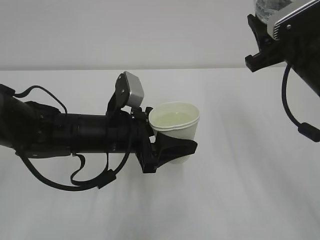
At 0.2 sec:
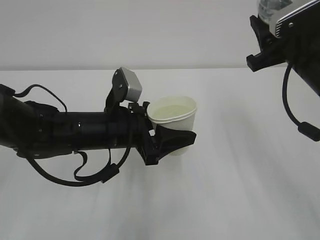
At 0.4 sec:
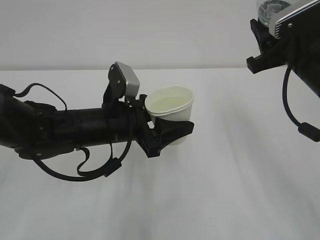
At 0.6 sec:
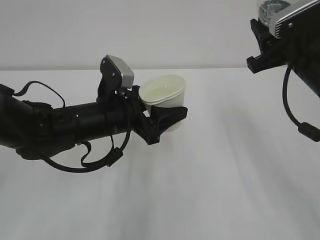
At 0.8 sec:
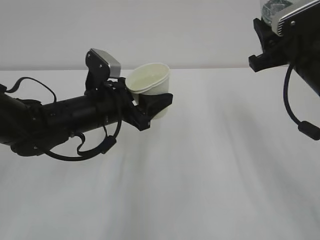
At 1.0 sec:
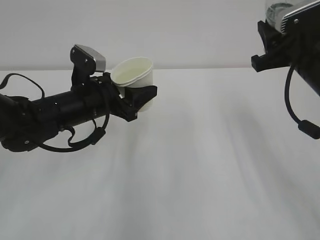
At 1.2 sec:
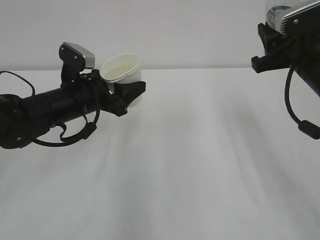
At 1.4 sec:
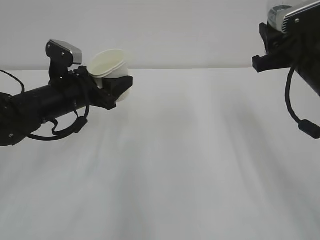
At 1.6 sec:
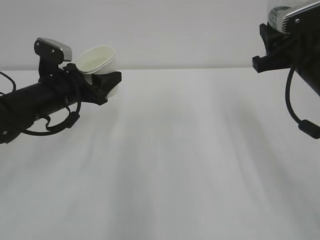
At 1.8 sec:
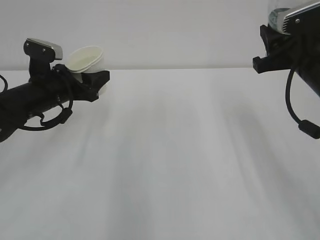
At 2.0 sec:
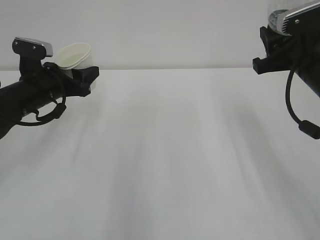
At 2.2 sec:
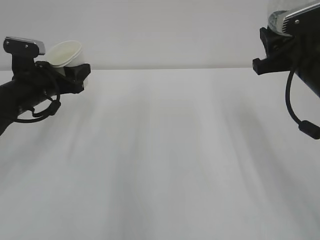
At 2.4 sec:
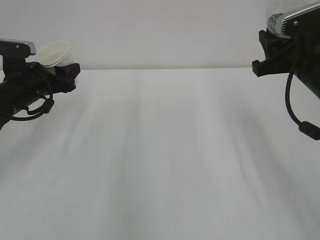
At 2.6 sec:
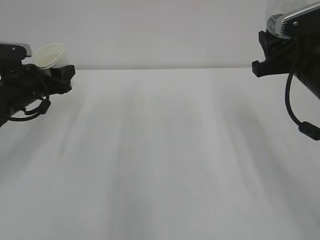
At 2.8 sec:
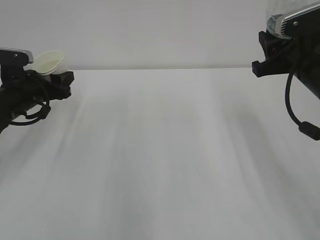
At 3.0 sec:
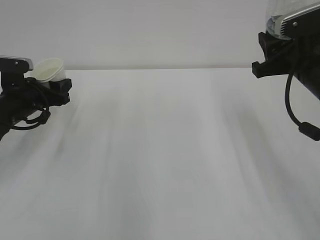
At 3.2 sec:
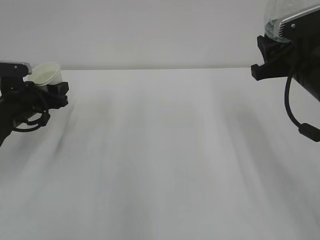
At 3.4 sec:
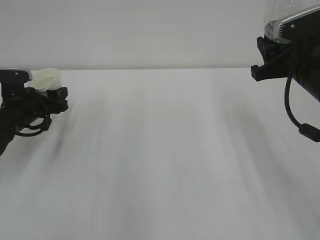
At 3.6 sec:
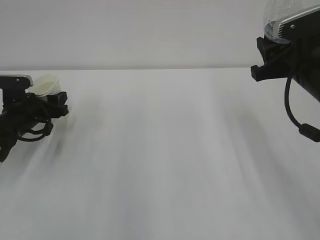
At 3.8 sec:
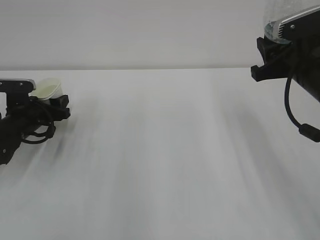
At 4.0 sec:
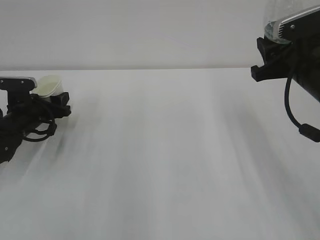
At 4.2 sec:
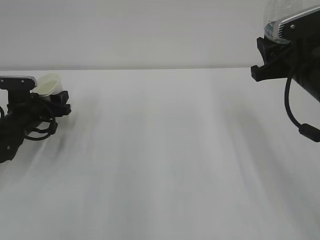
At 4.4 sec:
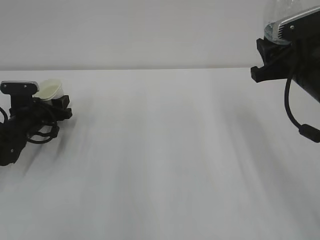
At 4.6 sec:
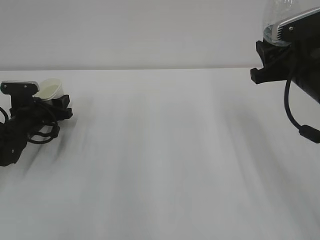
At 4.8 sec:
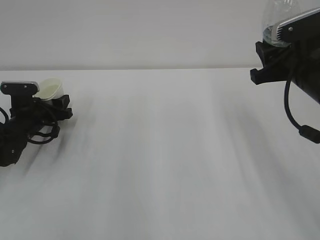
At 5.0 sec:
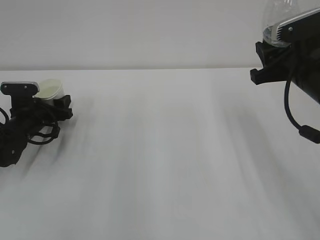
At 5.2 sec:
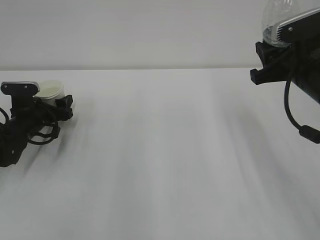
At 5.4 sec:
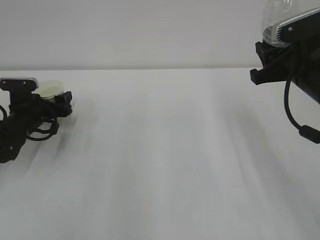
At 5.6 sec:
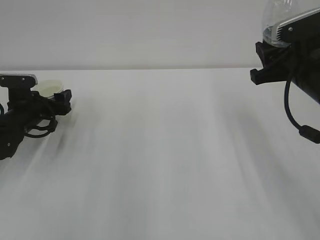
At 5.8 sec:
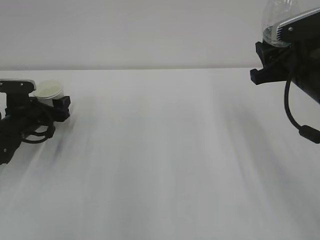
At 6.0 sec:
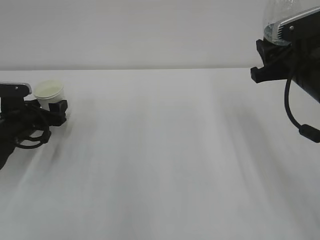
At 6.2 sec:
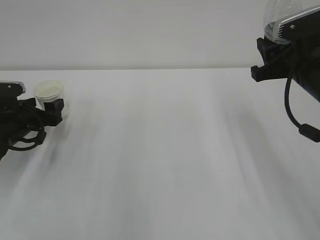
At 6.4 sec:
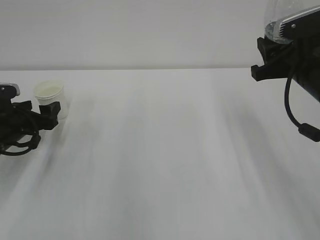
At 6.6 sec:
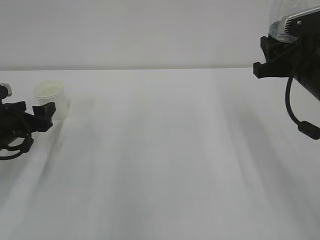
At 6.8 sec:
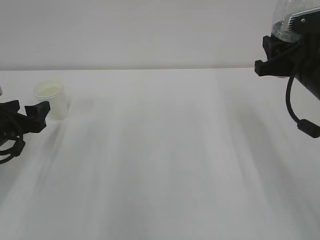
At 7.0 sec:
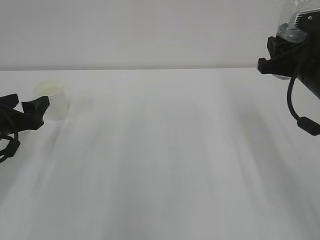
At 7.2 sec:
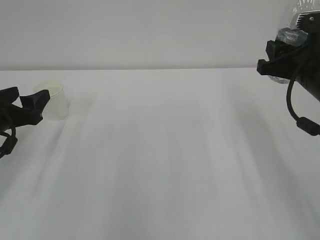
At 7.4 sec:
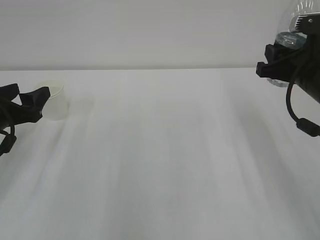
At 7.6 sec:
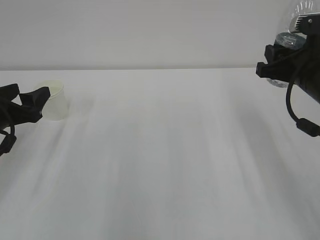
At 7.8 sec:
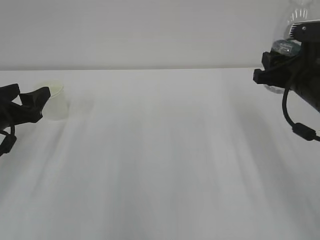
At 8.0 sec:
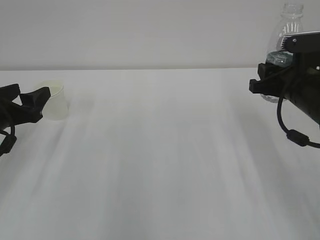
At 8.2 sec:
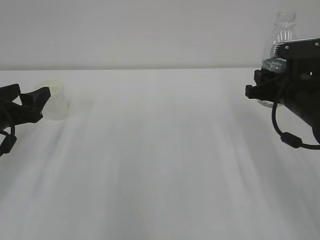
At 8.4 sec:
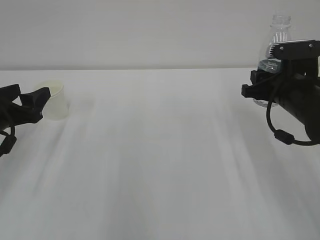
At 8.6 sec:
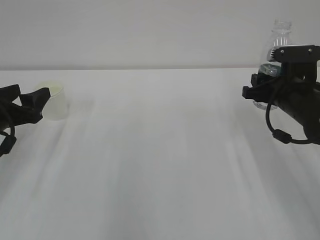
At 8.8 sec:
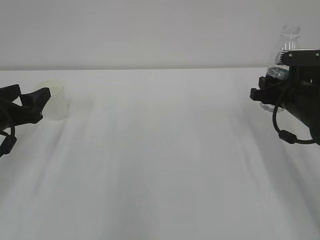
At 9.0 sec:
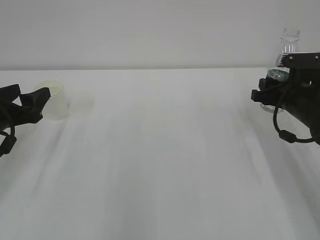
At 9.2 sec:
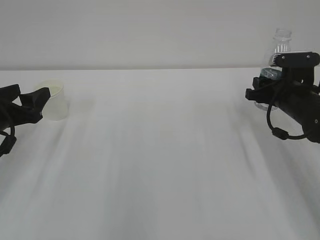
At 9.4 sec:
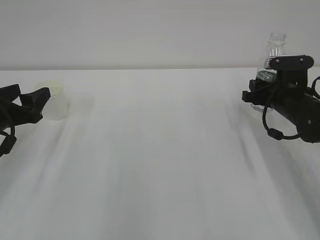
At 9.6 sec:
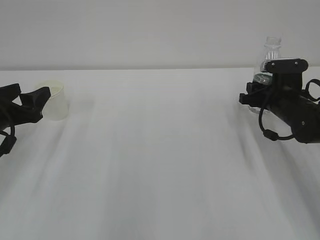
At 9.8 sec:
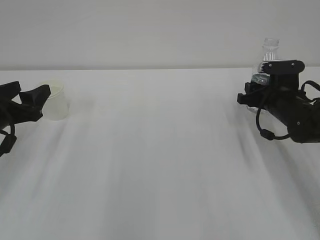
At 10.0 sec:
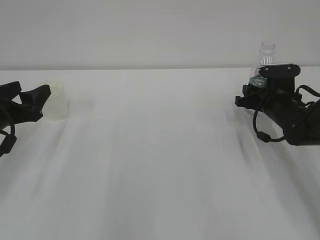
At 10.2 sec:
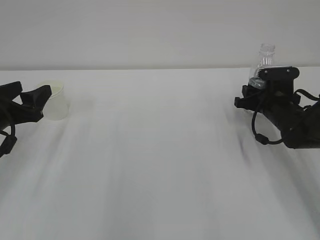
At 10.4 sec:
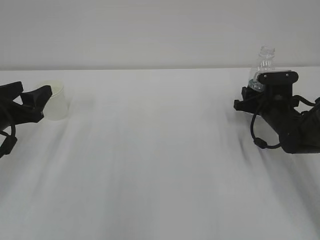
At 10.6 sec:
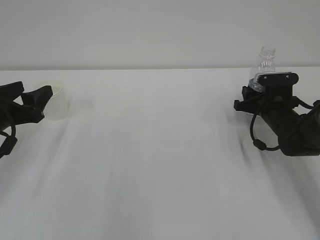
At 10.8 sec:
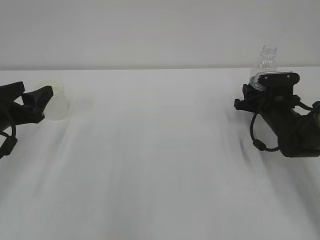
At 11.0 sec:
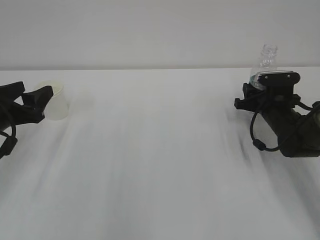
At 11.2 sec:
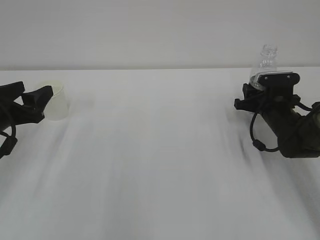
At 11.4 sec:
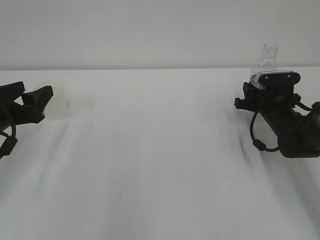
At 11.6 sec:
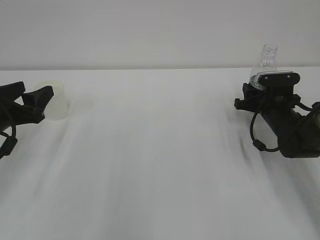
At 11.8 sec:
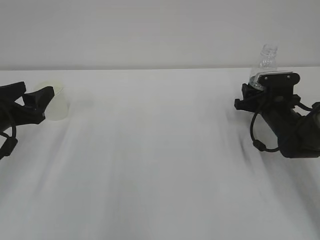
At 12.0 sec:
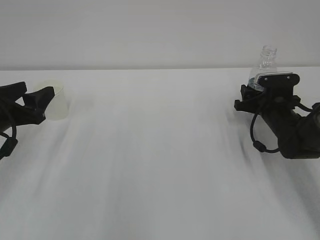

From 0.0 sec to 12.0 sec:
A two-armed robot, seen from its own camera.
From 0.0 sec to 1.6 sec: The left gripper is displaced to the left and forward by approximately 15 cm.
From 1.6 sec to 3.0 sec: The left gripper is displaced to the left by approximately 10 cm.
From 3.0 sec to 4.4 sec: The left gripper travels downward by some 5 cm.
From 4.4 sec to 6.0 sec: The left gripper opens its fingers.
From 6.0 sec to 7.6 sec: The left gripper shifts approximately 10 cm backward and upward.
From 7.6 sec to 9.0 sec: The right gripper is displaced downward and forward by about 10 cm.
From 9.0 sec to 10.4 sec: The right gripper shifts roughly 10 cm downward and forward.
From 10.4 sec to 12.0 sec: The right gripper opens up.

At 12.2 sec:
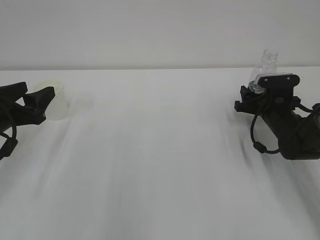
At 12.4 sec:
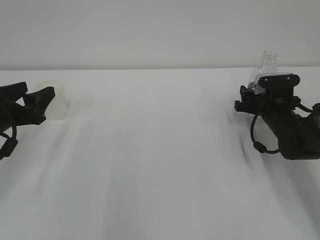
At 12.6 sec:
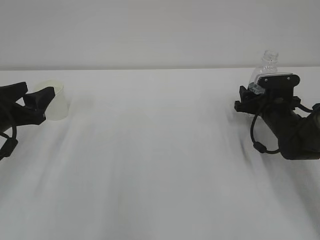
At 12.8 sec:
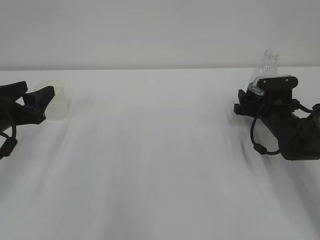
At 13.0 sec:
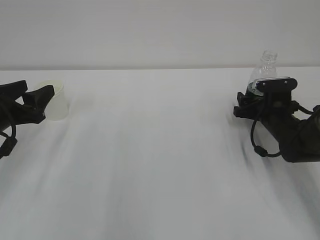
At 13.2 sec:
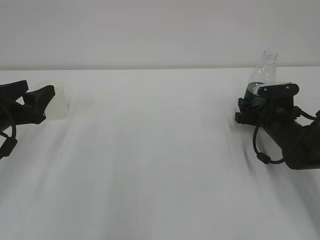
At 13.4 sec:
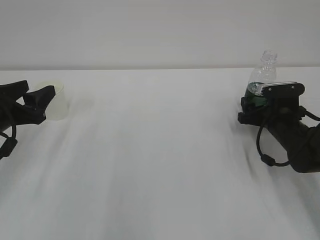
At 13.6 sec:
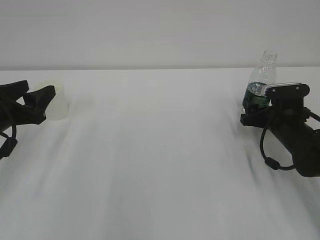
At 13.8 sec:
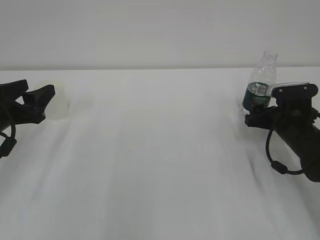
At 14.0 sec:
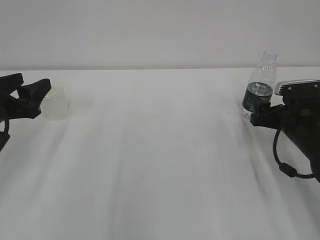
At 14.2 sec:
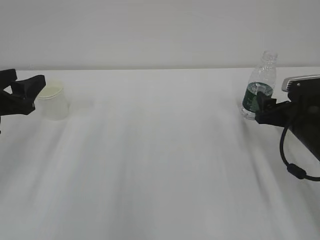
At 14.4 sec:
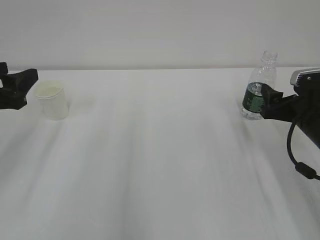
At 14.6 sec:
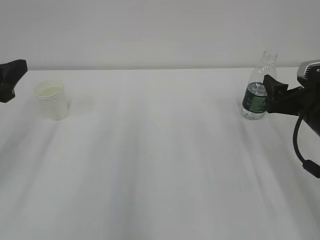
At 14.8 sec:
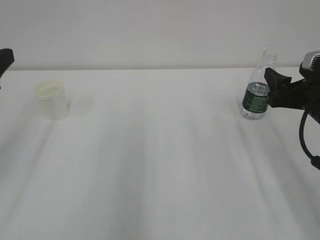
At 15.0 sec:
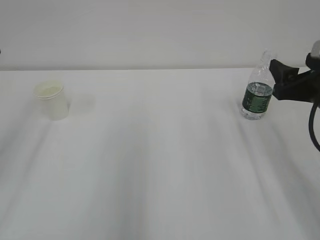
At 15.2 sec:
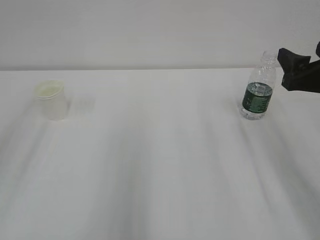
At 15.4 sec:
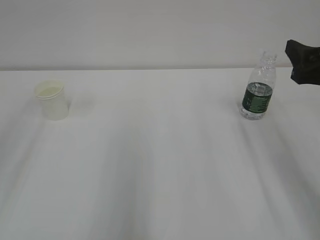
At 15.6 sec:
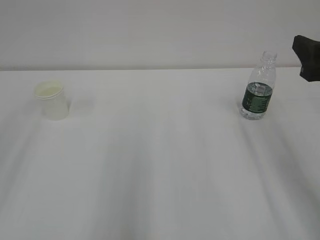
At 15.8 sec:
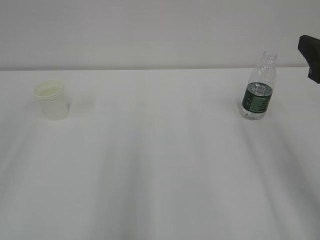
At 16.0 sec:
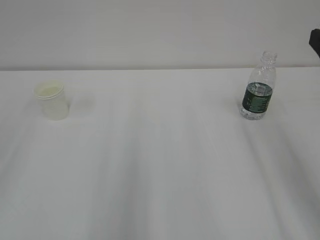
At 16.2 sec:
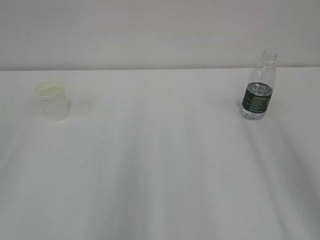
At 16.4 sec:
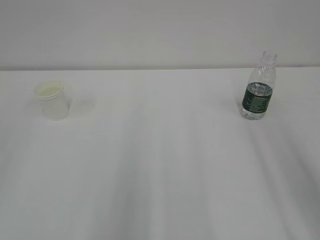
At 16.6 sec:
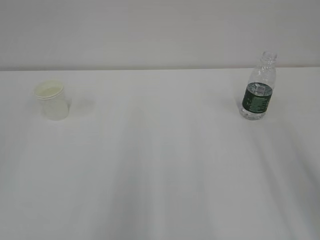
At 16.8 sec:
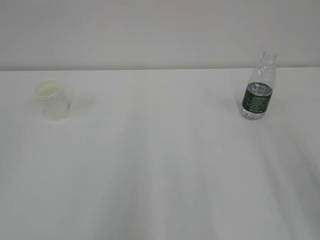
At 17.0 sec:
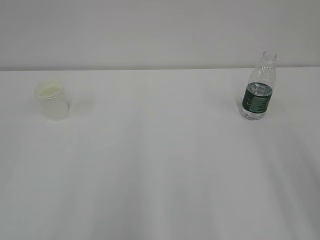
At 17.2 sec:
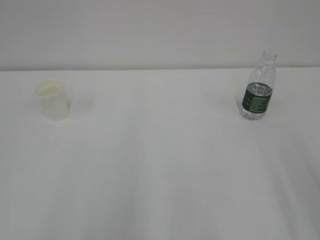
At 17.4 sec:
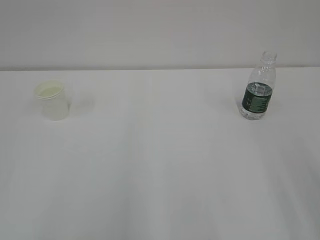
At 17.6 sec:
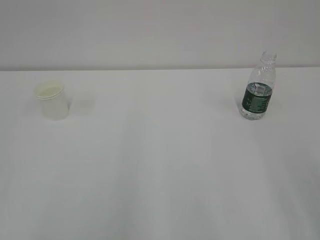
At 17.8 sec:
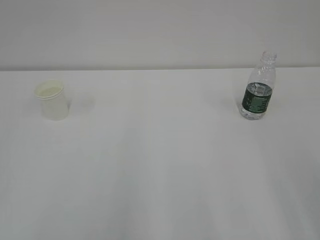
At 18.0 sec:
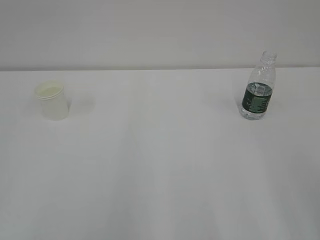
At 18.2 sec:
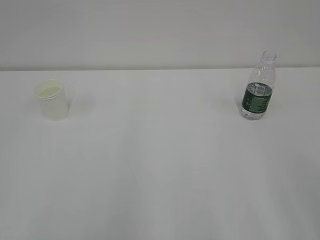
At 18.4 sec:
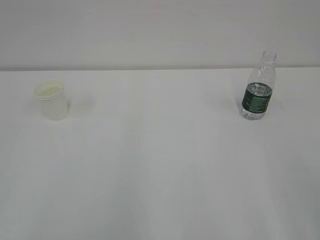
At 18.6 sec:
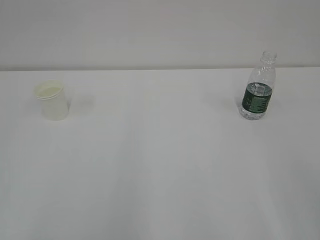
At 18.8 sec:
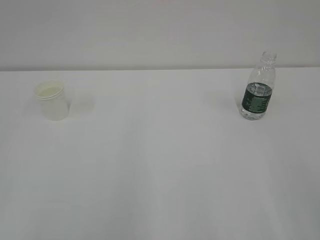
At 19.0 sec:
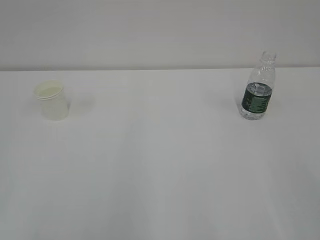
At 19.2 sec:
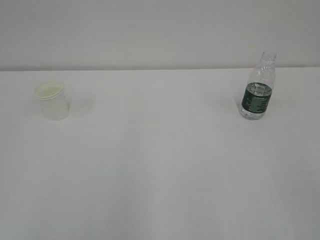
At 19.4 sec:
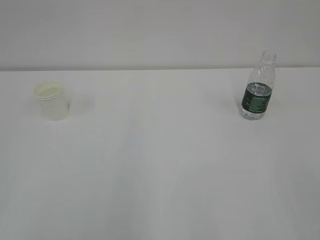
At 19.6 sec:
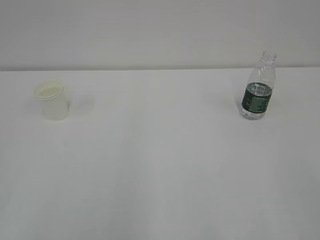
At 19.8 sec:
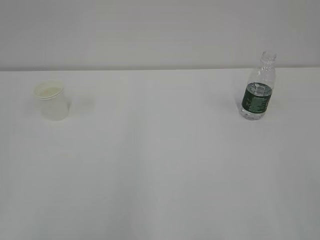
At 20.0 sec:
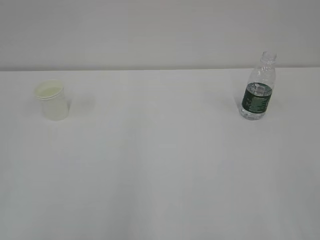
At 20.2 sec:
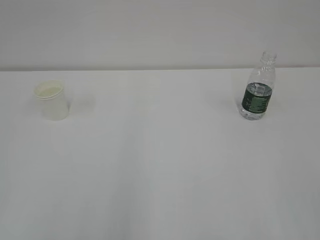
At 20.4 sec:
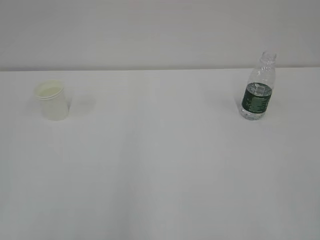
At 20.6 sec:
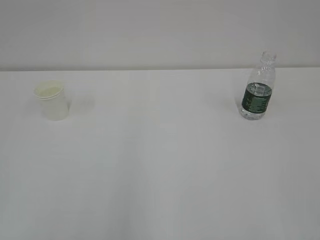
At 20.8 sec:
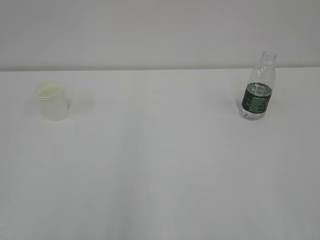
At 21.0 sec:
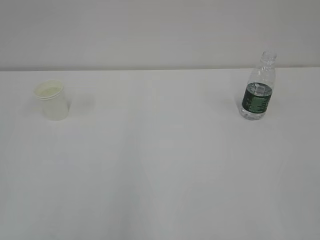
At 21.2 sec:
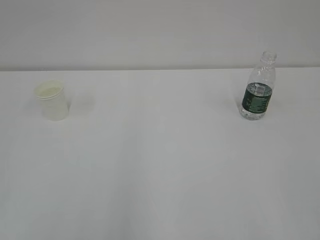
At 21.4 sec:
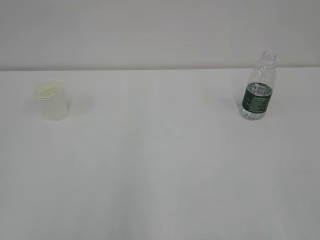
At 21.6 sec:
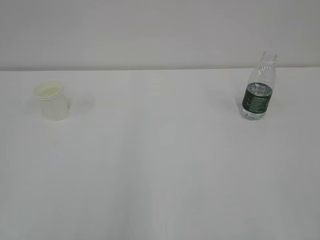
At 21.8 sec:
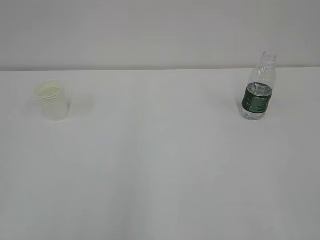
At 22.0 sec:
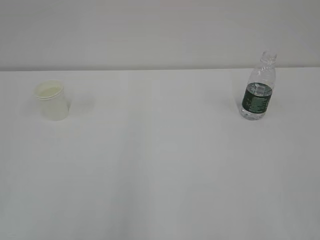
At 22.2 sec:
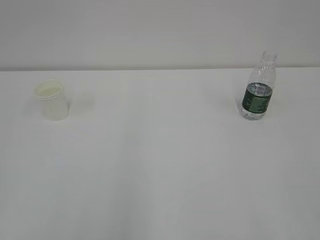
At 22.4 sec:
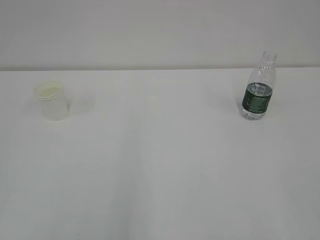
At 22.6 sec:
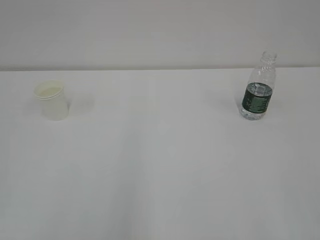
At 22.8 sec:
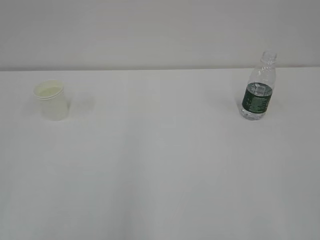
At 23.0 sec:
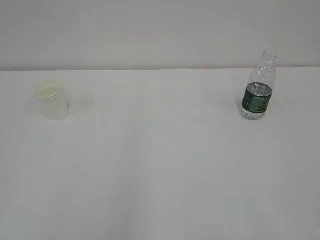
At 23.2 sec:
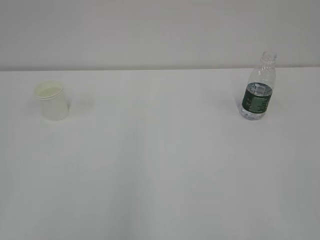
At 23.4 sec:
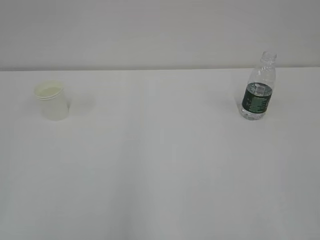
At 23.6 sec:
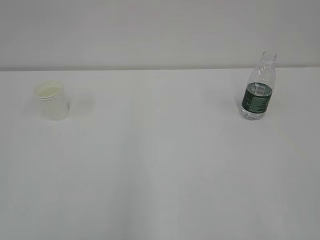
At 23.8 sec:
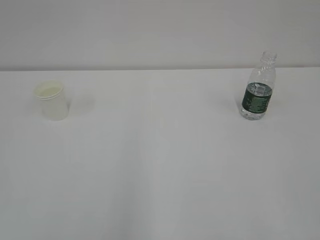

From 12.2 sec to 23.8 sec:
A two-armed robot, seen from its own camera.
From 12.2 sec to 13.6 sec: The right gripper opens its fingers.
From 13.6 sec to 15.0 sec: Both grippers move upward and backward, approximately 15 cm.
From 15.0 sec to 16.6 sec: The right gripper heads backward and upward, covering approximately 15 cm.
From 21.0 sec to 22.4 sec: Both grippers stay about where they are.
